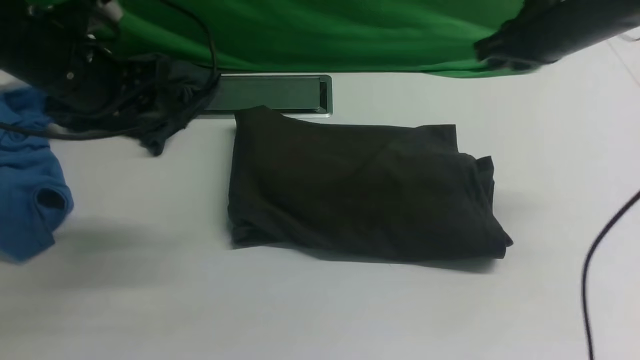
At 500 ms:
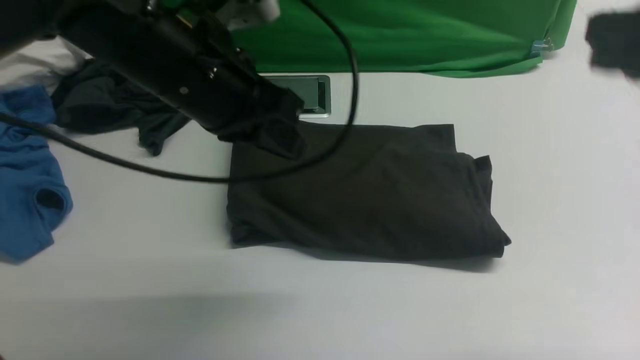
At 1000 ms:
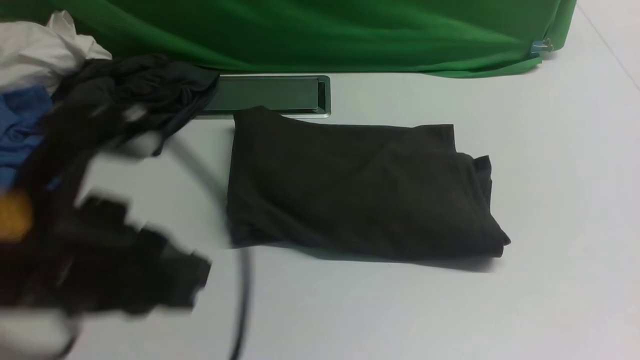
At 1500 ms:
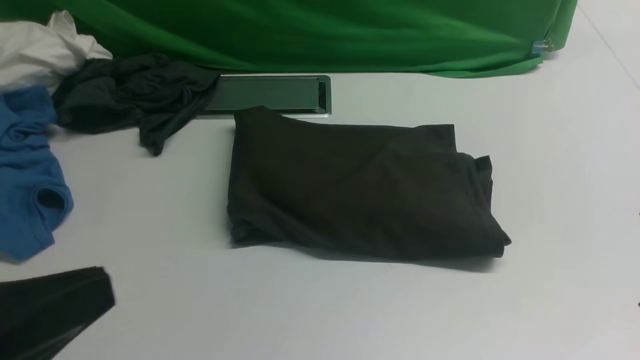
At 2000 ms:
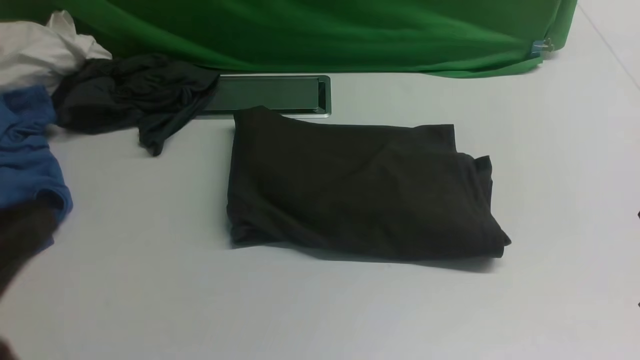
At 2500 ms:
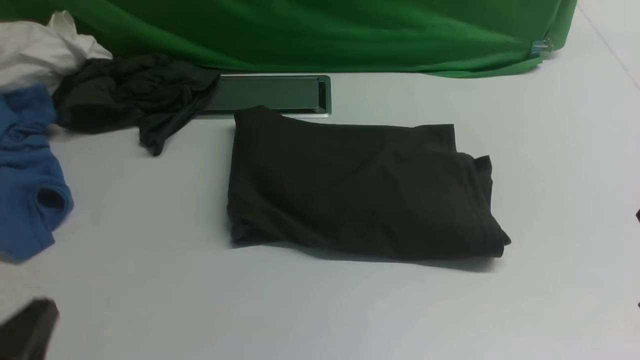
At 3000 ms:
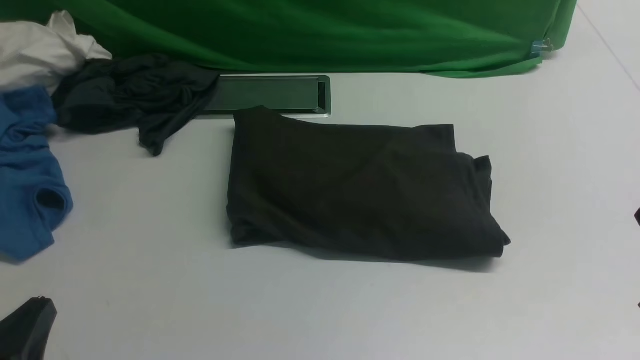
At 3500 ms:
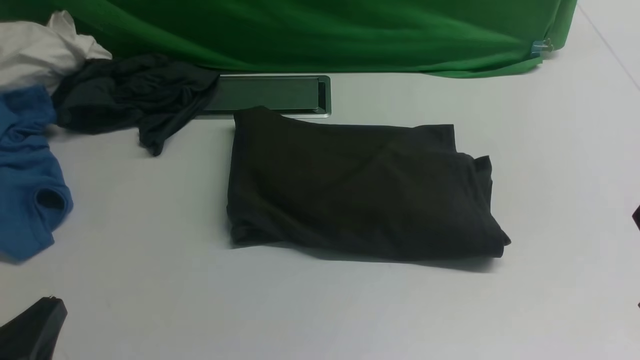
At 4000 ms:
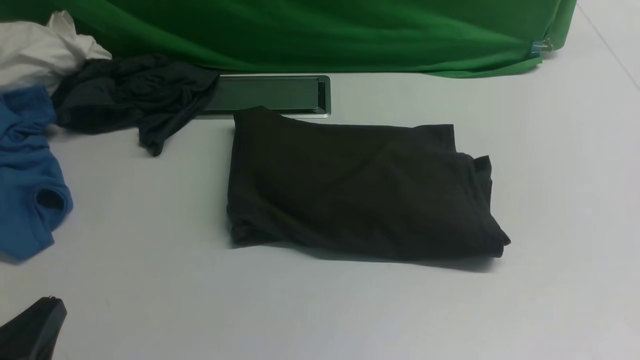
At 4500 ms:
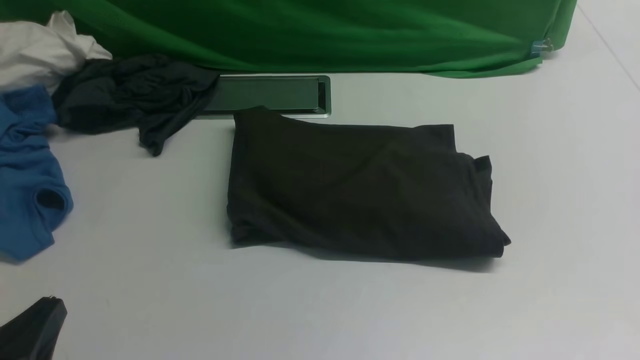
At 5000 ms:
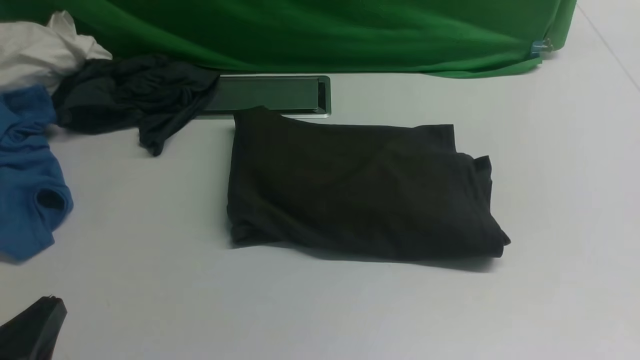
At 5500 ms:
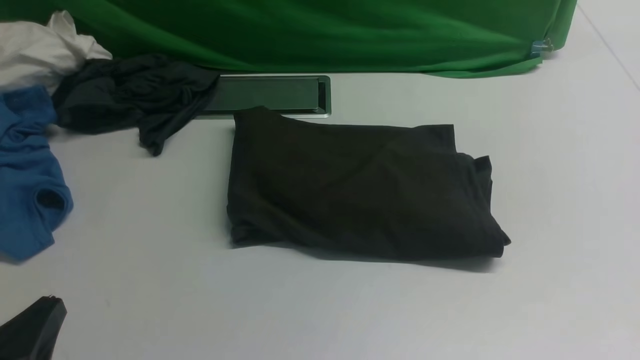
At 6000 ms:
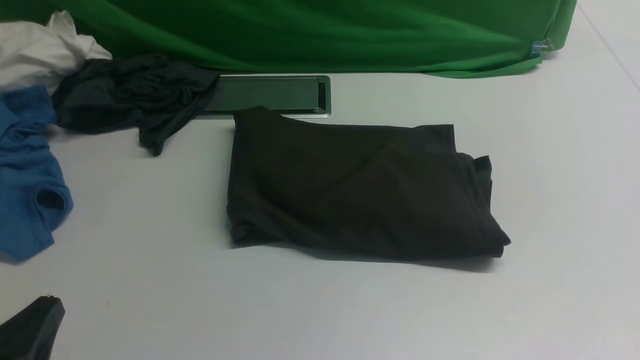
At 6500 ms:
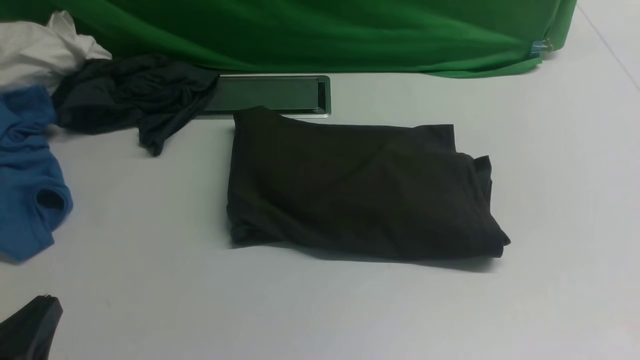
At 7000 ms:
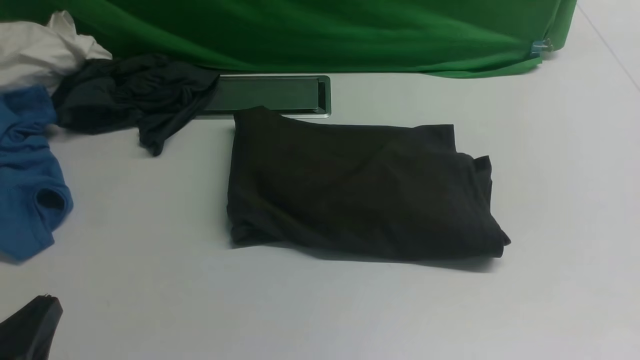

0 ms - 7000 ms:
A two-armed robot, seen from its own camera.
0 ms - 2000 ms: Both grippers travel together backward, about 30 cm. The left gripper closes its fingers.
2000 ms - 3500 ms: The left gripper heads downward, covering approximately 15 cm.
5000 ms - 7000 ms: Both grippers stay put.
